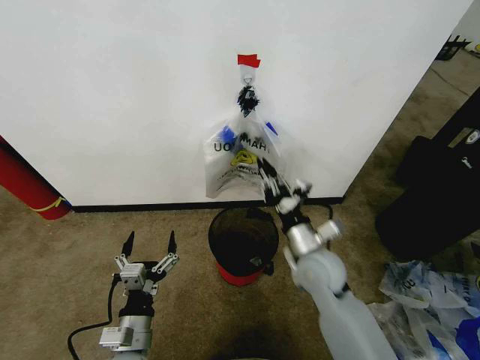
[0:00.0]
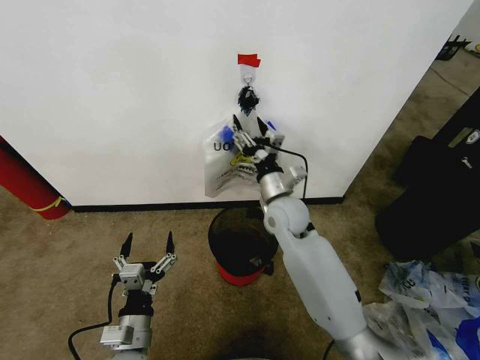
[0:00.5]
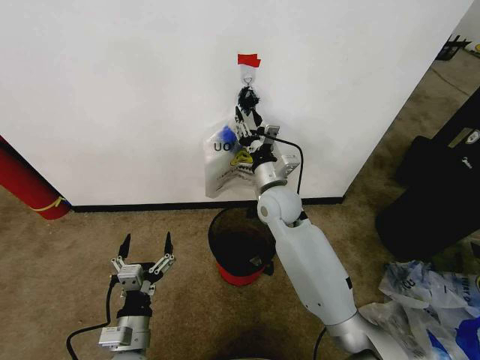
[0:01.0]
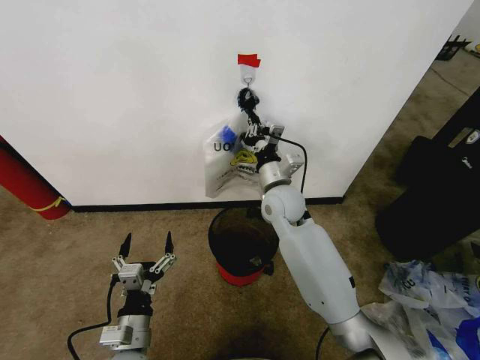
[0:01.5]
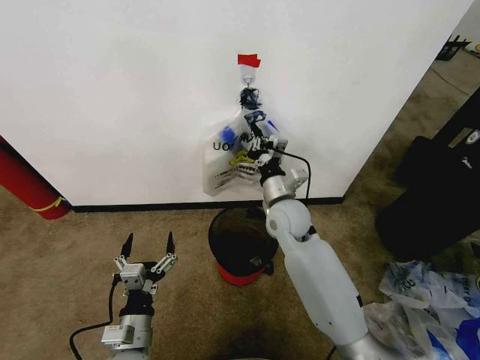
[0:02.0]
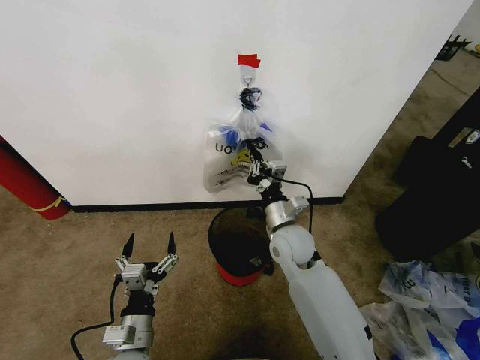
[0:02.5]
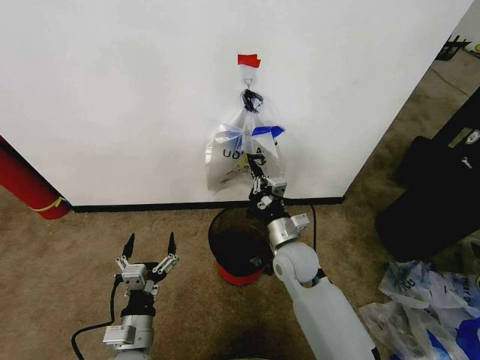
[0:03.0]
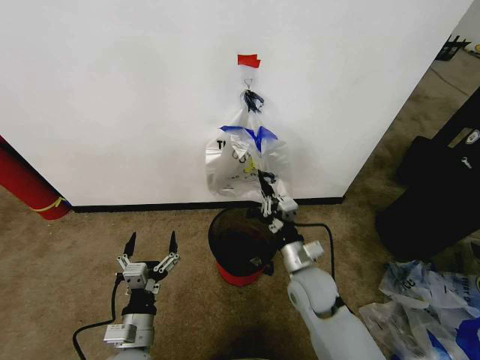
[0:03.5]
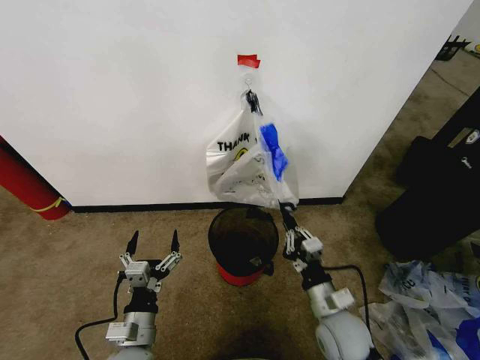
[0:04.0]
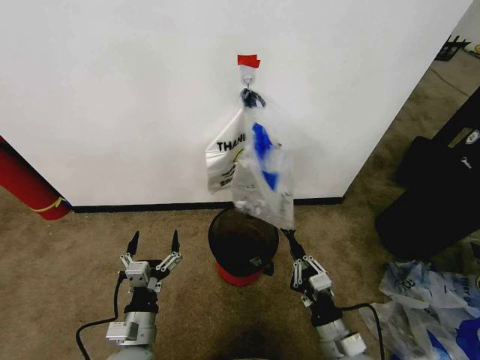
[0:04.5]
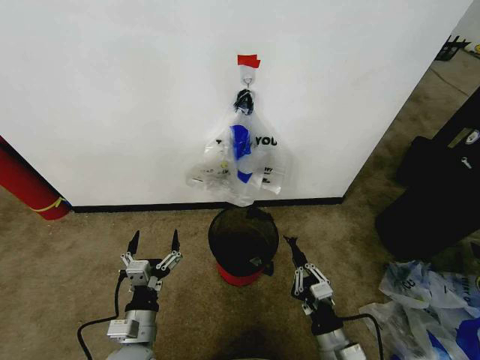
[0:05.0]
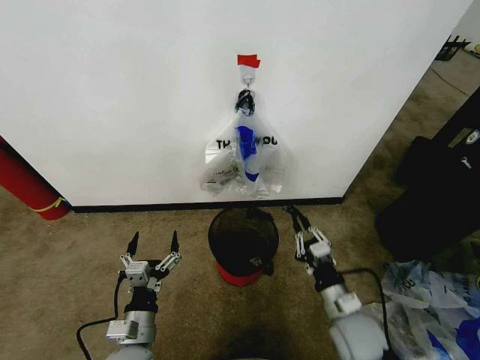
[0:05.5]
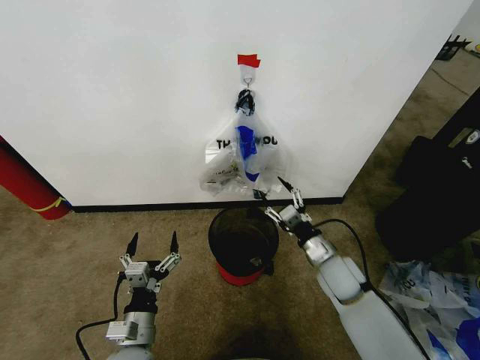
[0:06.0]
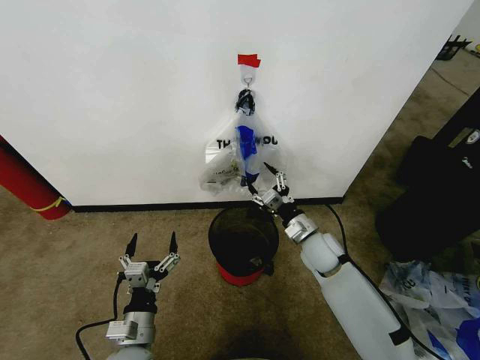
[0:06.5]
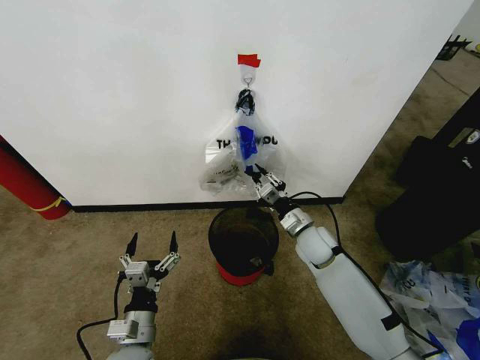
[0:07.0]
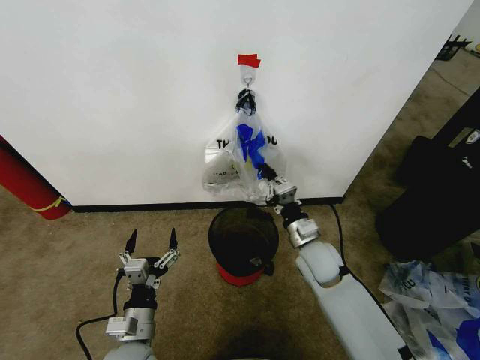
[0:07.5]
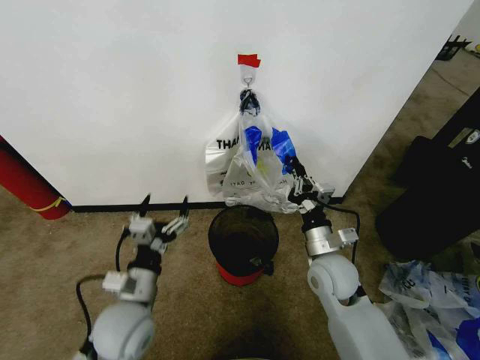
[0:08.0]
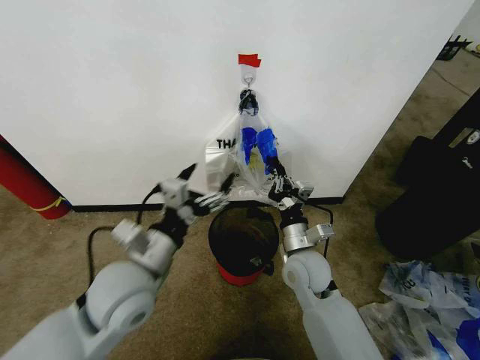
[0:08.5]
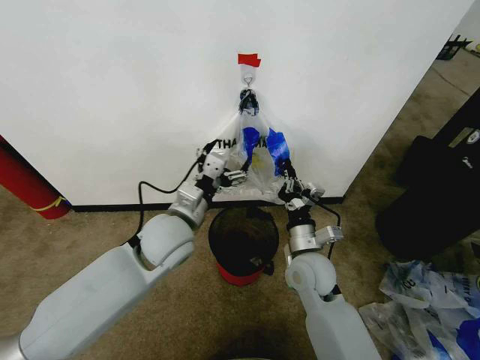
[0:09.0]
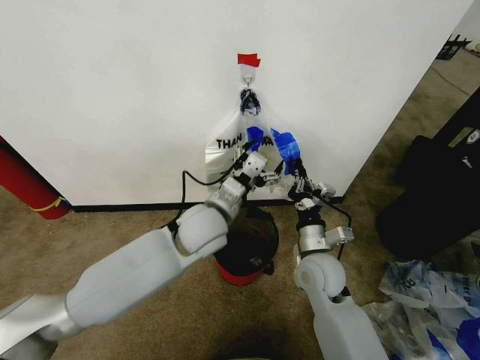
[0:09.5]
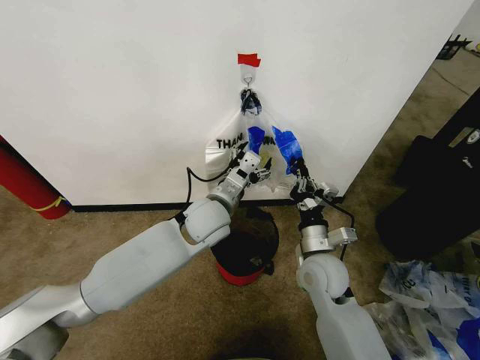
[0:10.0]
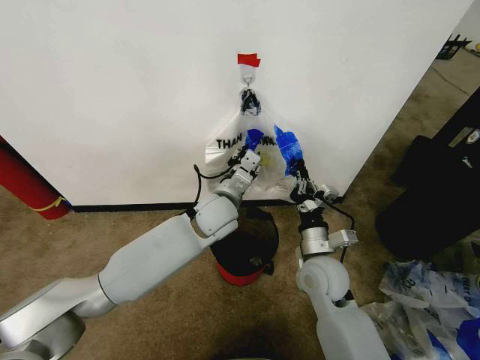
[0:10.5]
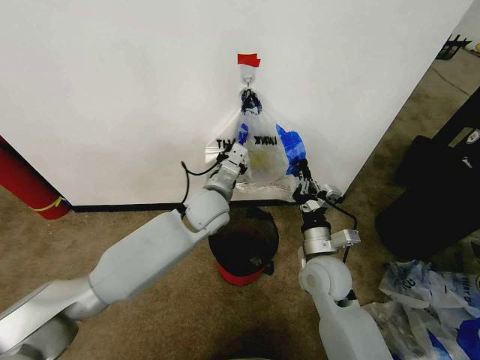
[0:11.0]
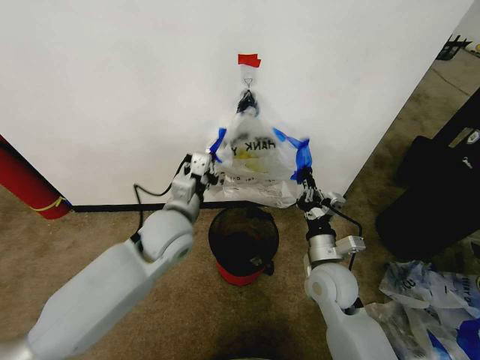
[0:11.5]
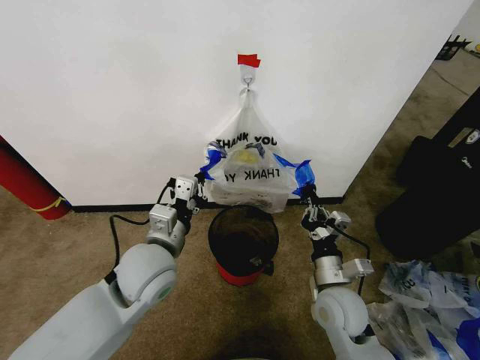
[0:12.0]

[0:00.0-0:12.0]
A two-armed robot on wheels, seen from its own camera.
Task of the whole recording: Pick up the garbage bag from the wall and place it over the trash bin.
0:00.0 to 0:02.0: The right gripper moves forward, roughly 10 cm, and opens, then closes again.
0:02.0 to 0:04.0: The right gripper moves backward, downward and to the right, approximately 25 cm.
0:04.0 to 0:06.0: The right gripper moves forward, some 10 cm, and opens up.
0:06.0 to 0:08.0: The right gripper moves some 10 cm forward and comes back, and closes its fingers, while the left gripper moves upward and forward, roughly 10 cm.
0:08.0 to 0:10.0: The left gripper moves forward, to the right and upward, roughly 25 cm.
0:10.0 to 0:12.0: The left gripper goes about 15 cm backward and to the left, and closes; the right gripper shifts roughly 5 cm backward.

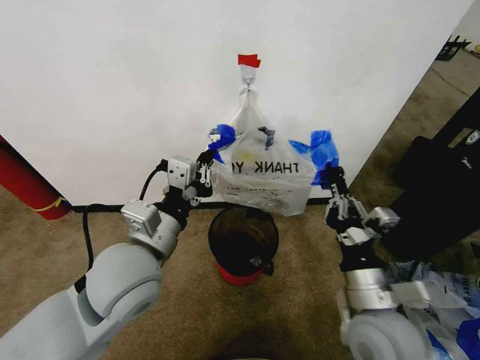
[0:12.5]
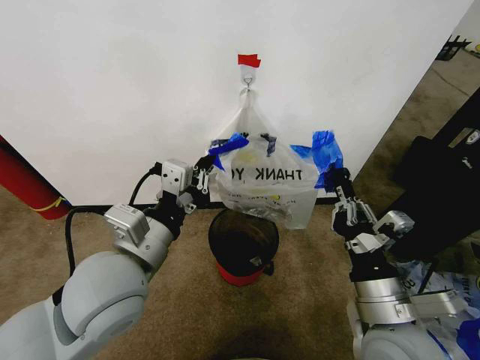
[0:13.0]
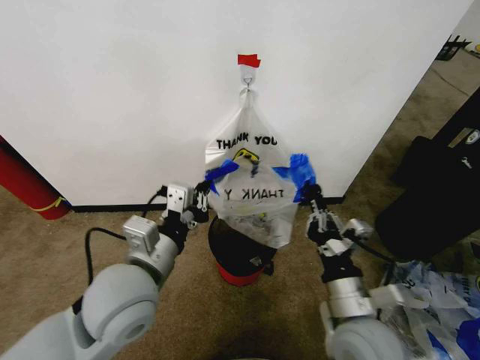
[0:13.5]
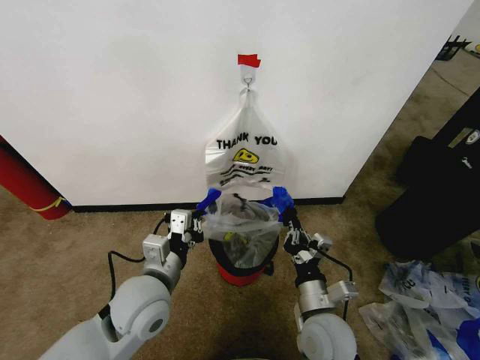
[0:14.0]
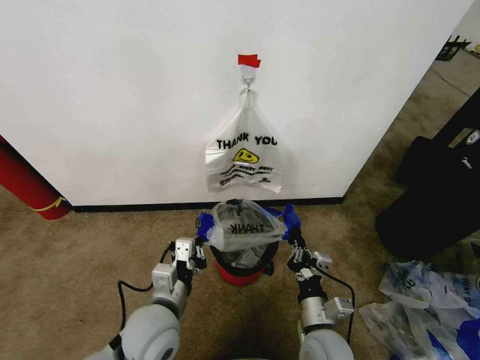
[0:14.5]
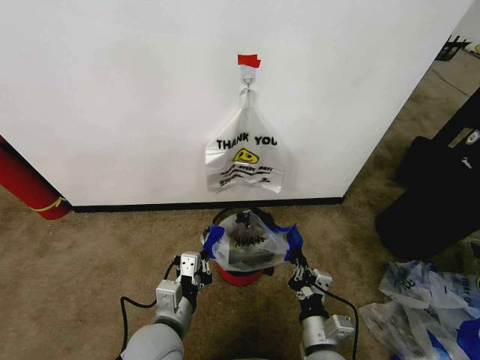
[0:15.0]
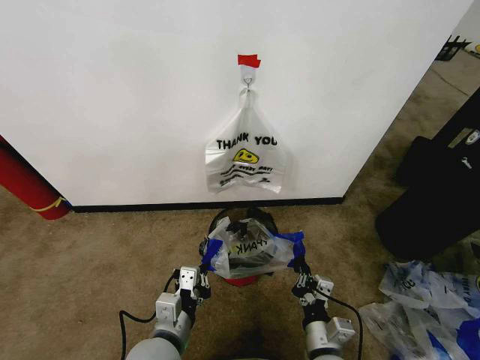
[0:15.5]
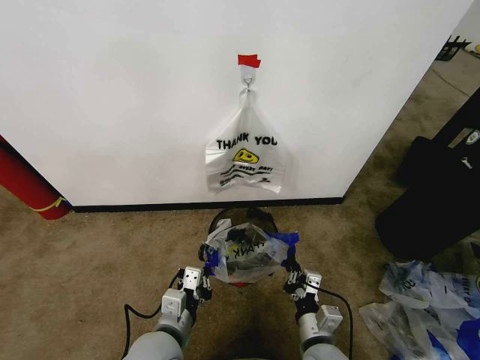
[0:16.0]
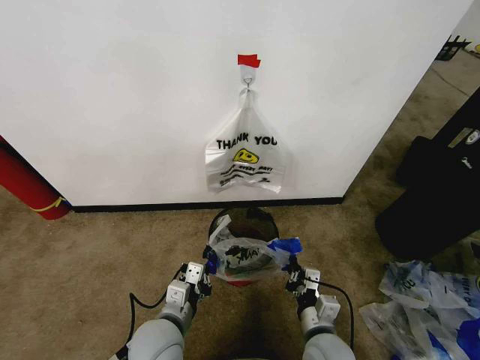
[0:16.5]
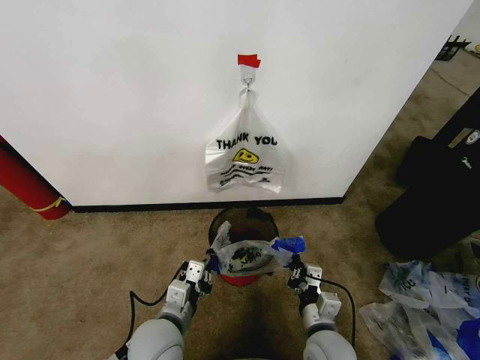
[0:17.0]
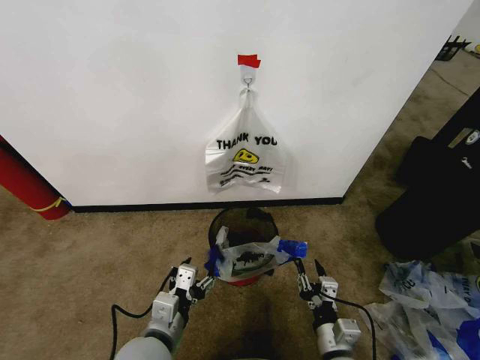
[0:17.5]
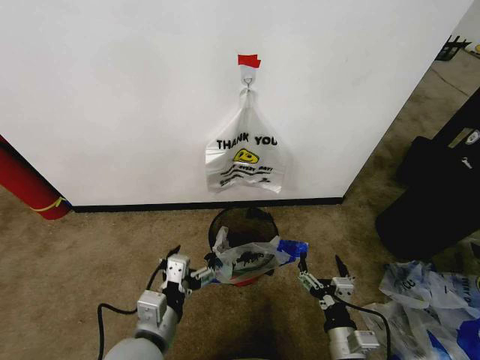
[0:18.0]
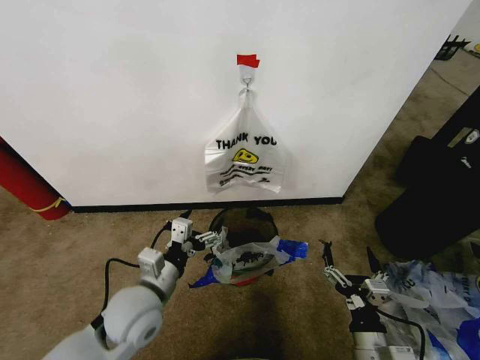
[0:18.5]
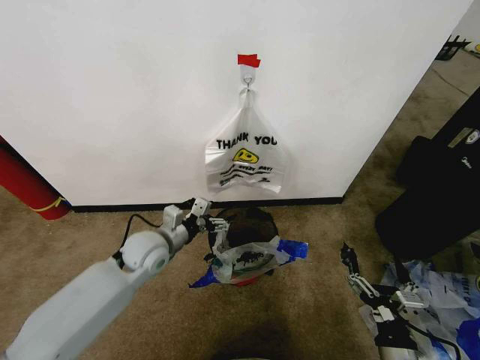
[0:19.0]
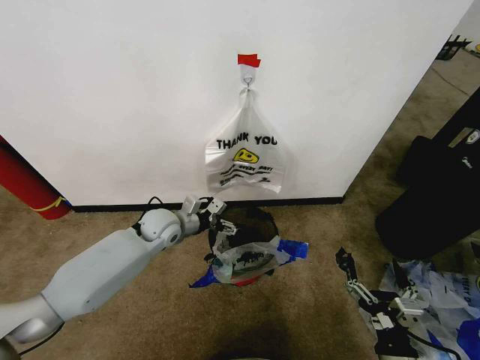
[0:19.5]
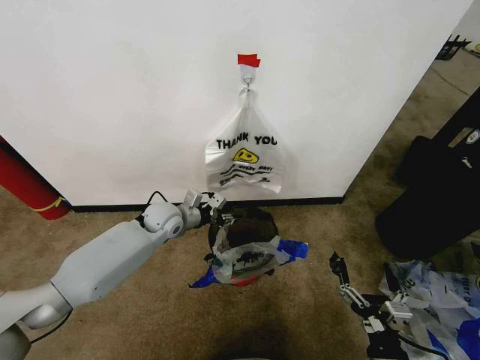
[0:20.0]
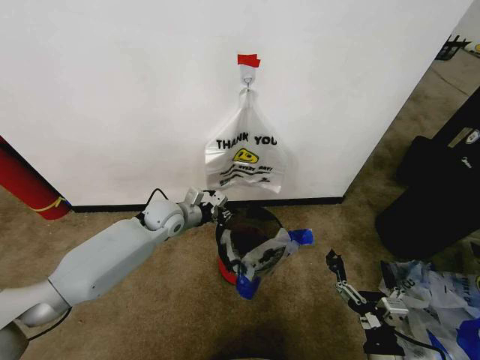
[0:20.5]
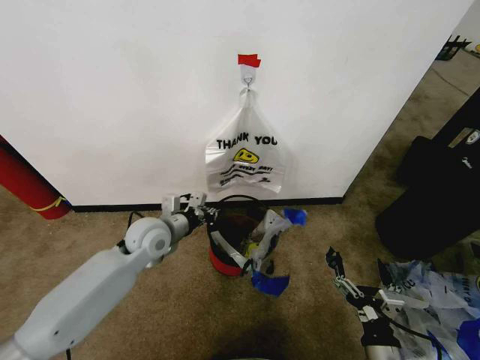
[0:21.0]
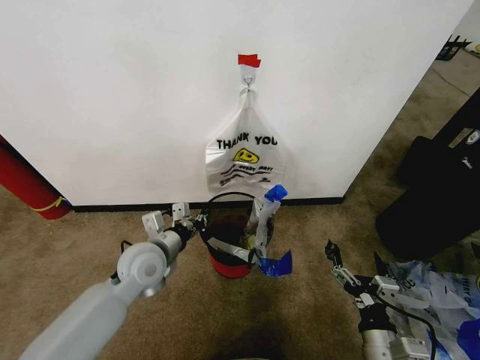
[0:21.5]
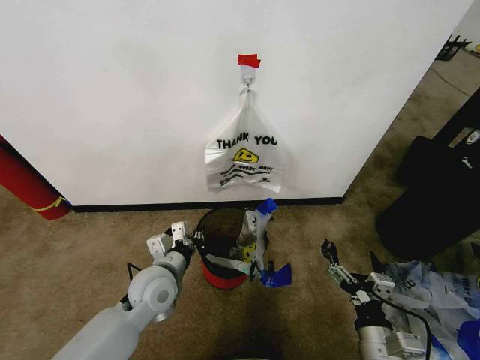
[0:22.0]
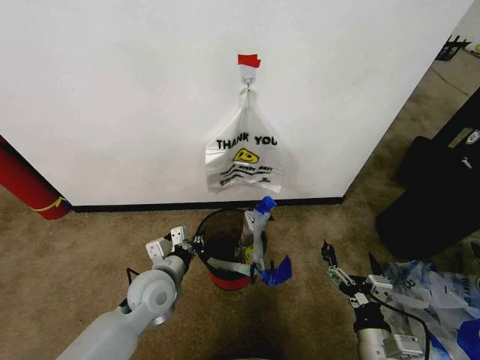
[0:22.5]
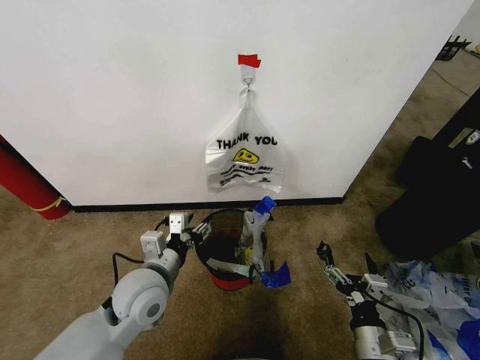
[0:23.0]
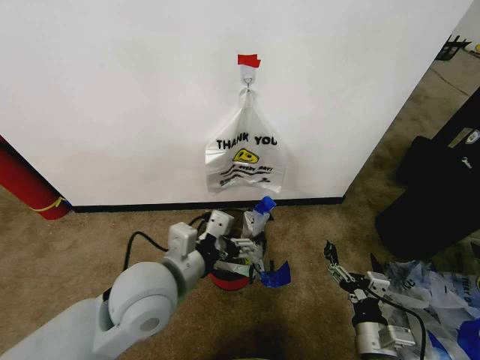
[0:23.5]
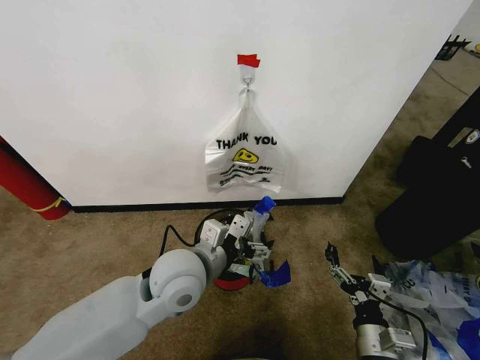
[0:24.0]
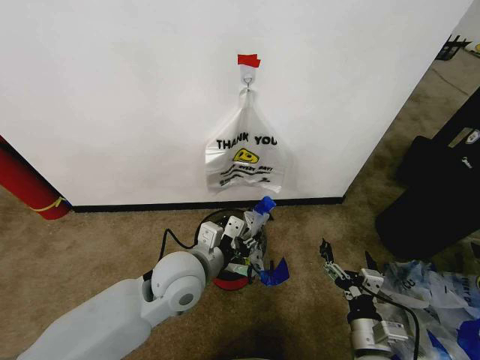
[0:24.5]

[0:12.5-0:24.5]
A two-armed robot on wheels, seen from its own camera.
Task of the whole recording: Pick up the garbage bag from the wall and place it over the trash bin.
0:12.5 to 0:14.5: Both grippers move downward, about 15 cm.
0:16.5 to 0:18.5: The right gripper is displaced to the right and backward by about 10 cm, and opens up; the left gripper moves upward, roughly 5 cm, and opens.
0:18.5 to 0:20.5: The left gripper travels forward by approximately 25 cm, and closes up.
0:20.5 to 0:22.5: The left gripper moves backward, roughly 20 cm.
0:22.5 to 0:24.5: The left gripper travels upward and to the right by some 10 cm, and opens, then closes again.

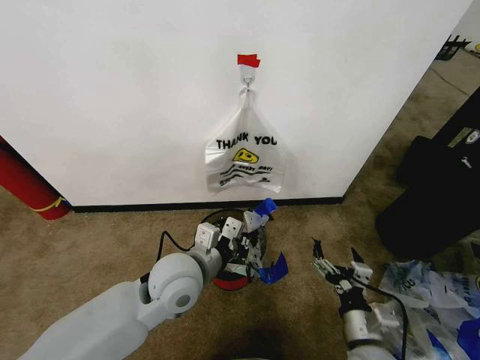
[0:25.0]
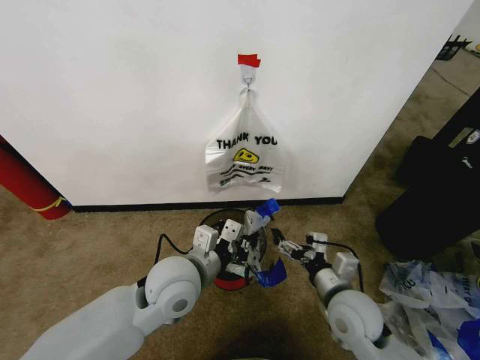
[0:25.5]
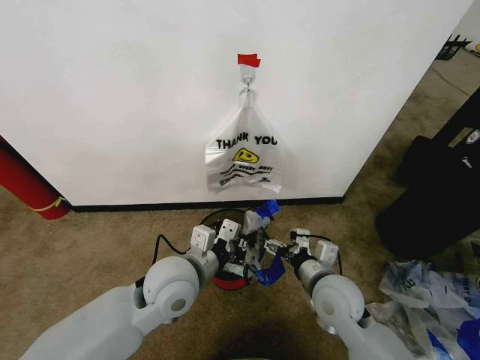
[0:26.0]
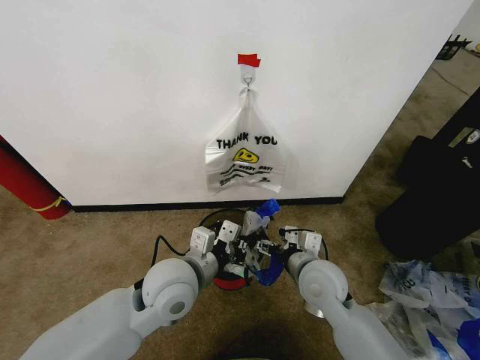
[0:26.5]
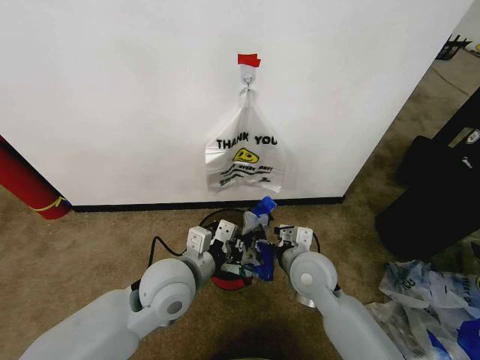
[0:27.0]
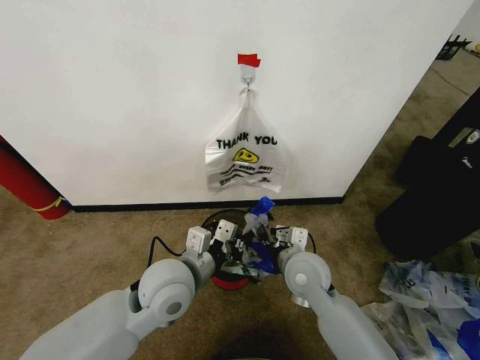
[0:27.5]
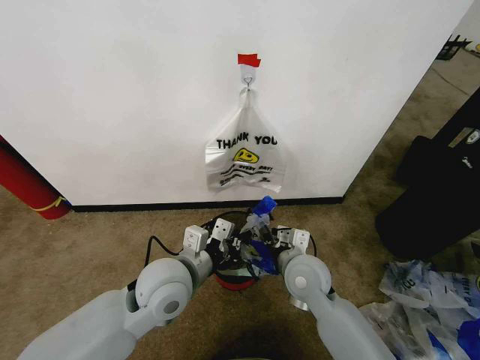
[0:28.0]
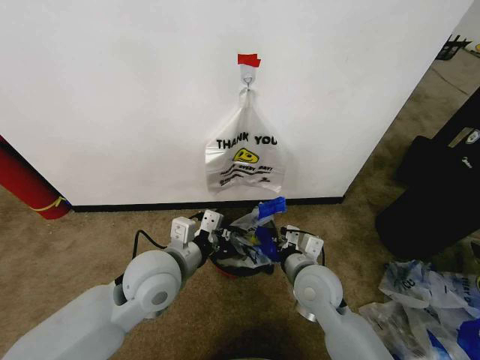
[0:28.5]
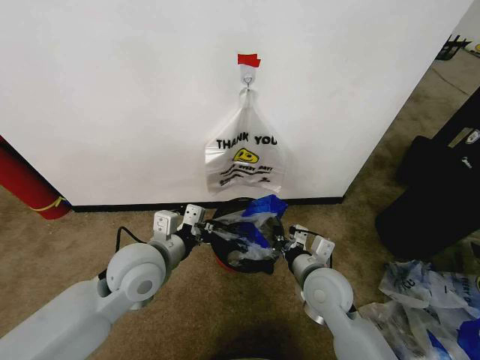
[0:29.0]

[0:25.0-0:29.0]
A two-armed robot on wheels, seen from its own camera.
Task of the whole recording: Pick up the garbage bag from the wall and place it over the trash bin.
0:25.0 to 0:27.0: The right gripper is displaced forward, to the left and upward by some 20 cm.
0:27.0 to 0:29.0: The left gripper moves to the left, about 5 cm, while the right gripper closes its fingers.
